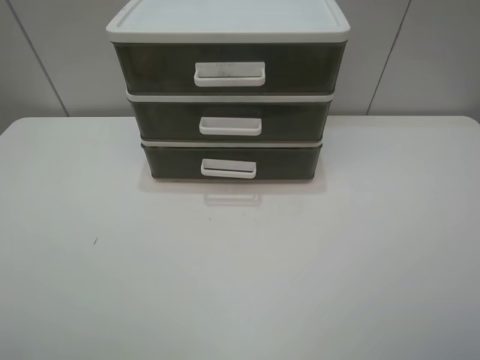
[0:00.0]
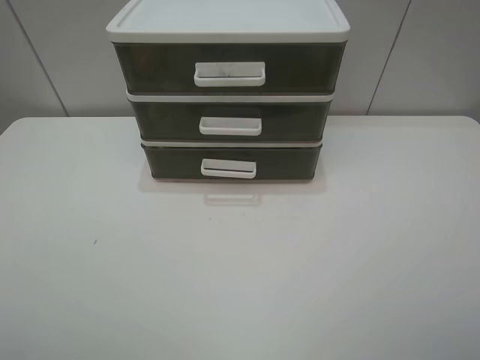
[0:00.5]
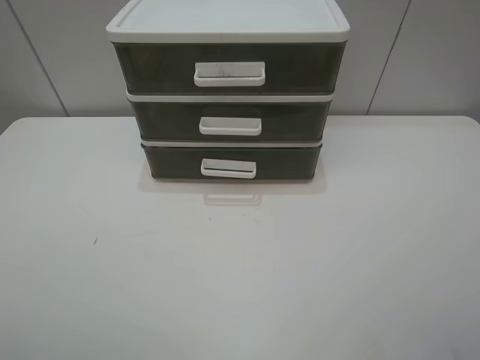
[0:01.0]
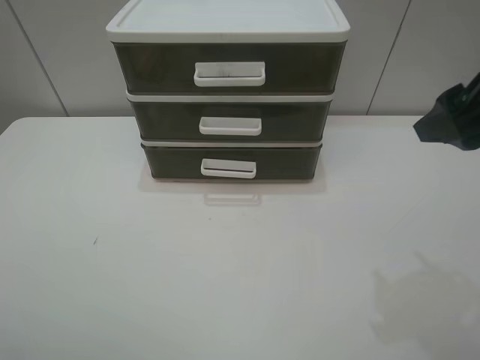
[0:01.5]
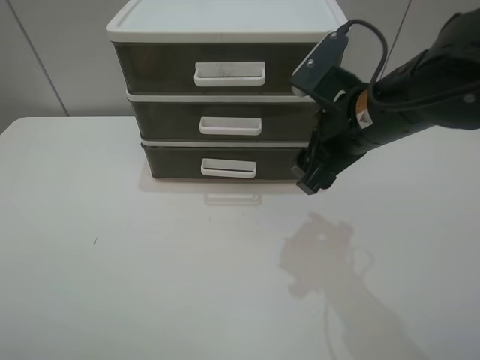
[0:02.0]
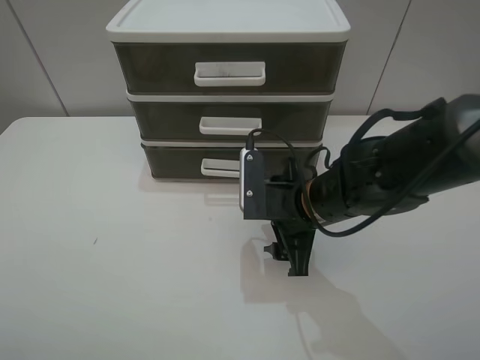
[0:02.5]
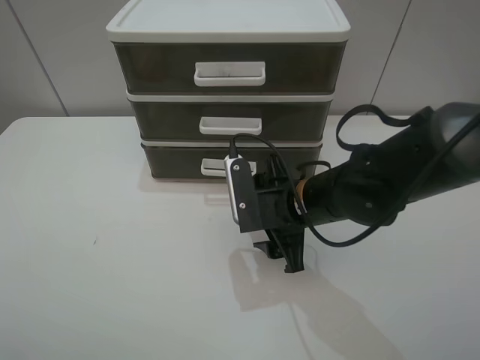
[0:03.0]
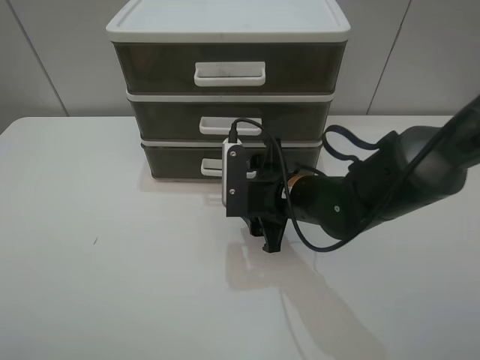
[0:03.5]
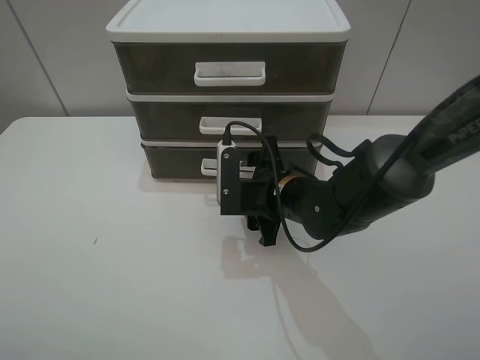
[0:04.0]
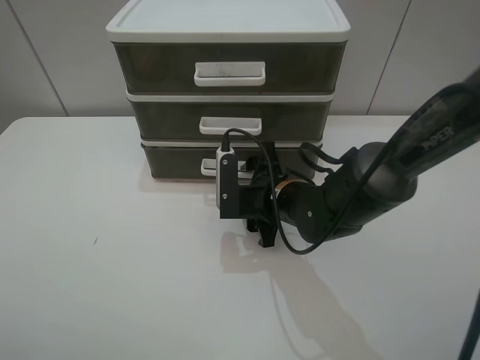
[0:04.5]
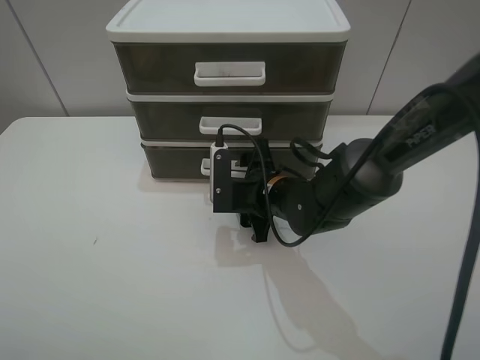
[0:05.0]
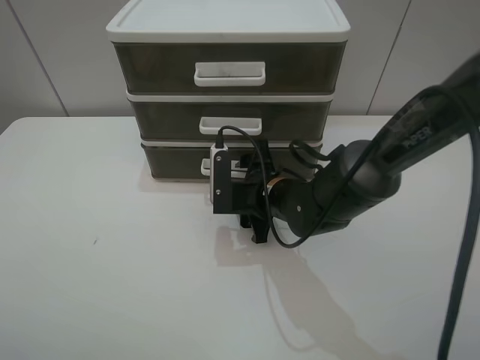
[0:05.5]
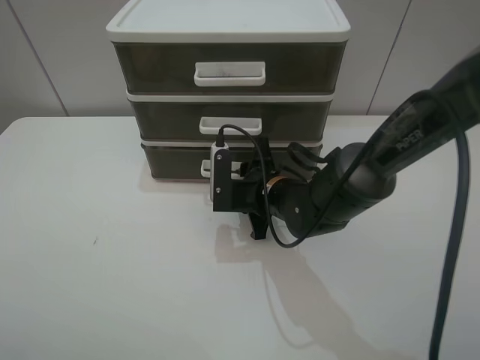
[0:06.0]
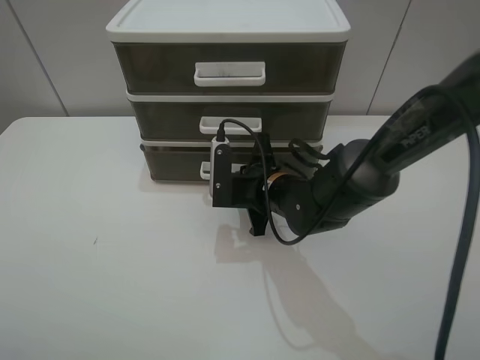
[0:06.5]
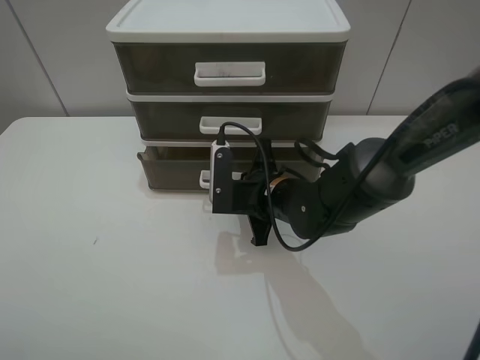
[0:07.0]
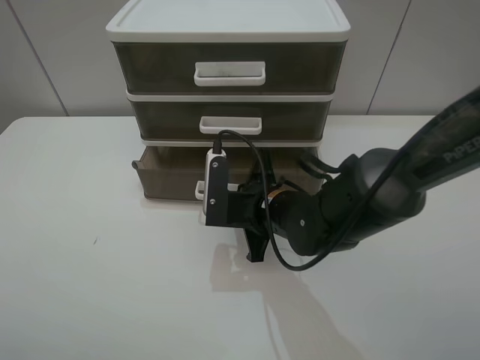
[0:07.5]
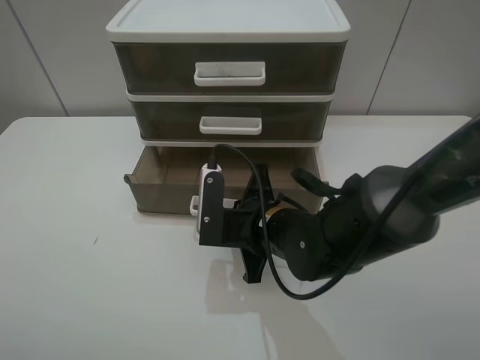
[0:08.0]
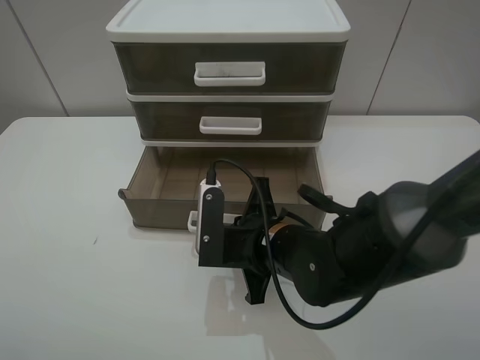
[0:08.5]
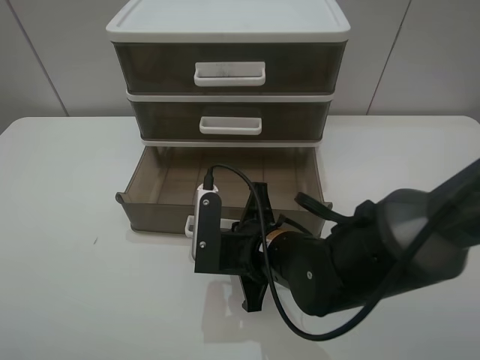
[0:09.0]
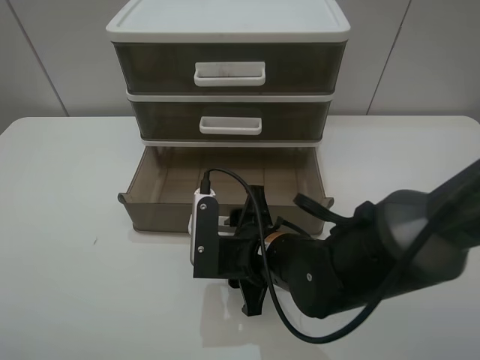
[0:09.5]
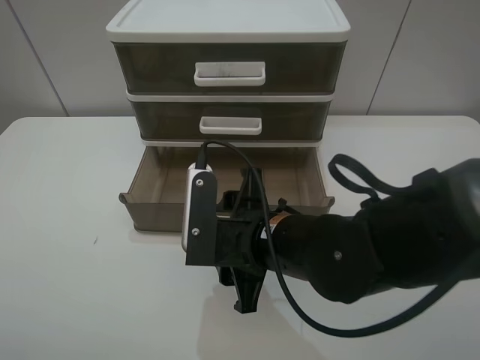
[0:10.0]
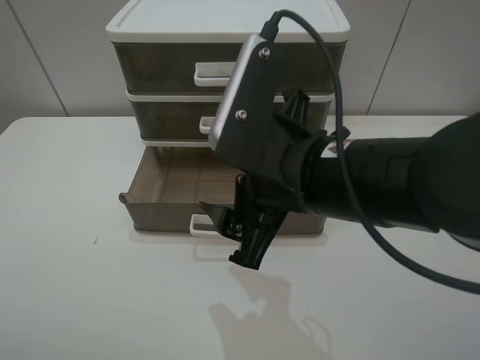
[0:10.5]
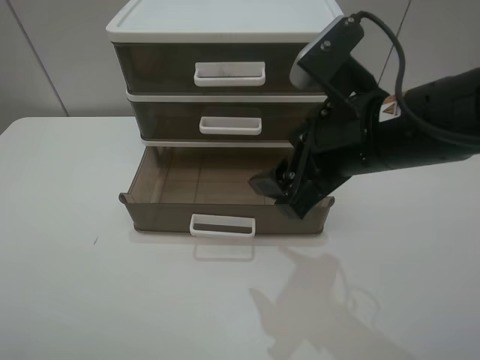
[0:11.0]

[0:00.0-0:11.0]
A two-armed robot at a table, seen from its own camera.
Task of the whole recording: open the bottom drawer.
Step, 0:00.0 to 0:06.5: Grab the bottom drawer with the right gripper.
Step, 0:07.0 to 0:10.0: Pull open the drawer with the right gripper.
0:00.0 to 0:02.0: The right gripper goes approximately 30 cm forward and to the left.
0:02.0 to 0:03.5: The right gripper heads downward and to the left, covering roughly 15 cm.
0:03.5 to 0:05.5: There are only small adjustments of the grippers.
0:05.5 to 0:07.5: The right gripper closes its fingers.
0:07.5 to 0:09.0: The right gripper moves backward, roughly 5 cm.
0:09.0 to 0:11.0: The right gripper moves upward and to the right, about 20 cm, and opens.

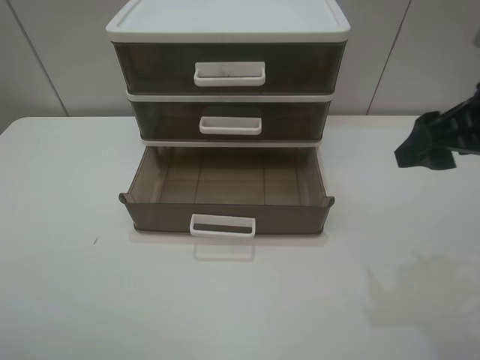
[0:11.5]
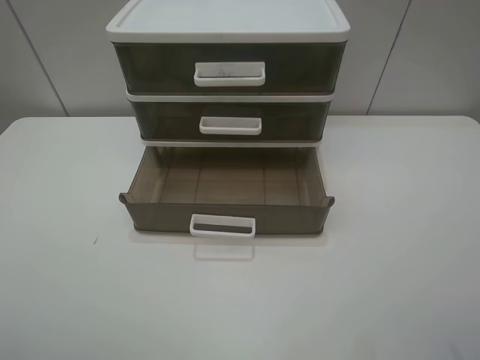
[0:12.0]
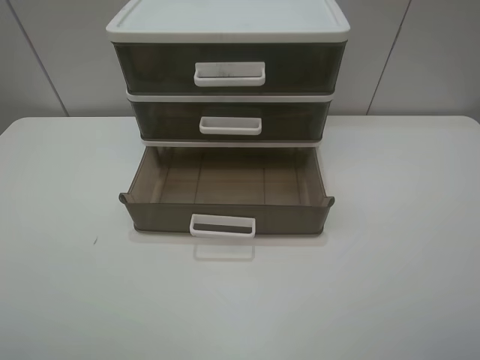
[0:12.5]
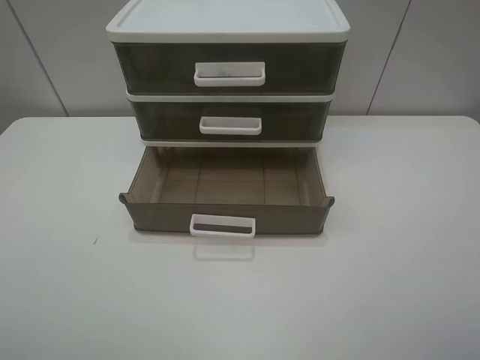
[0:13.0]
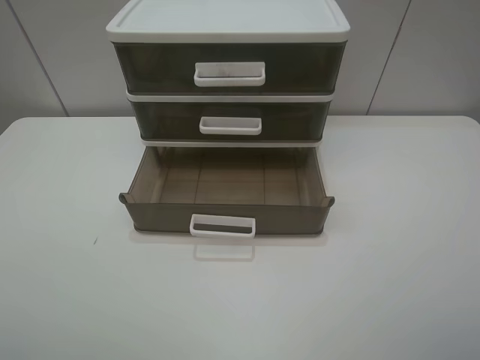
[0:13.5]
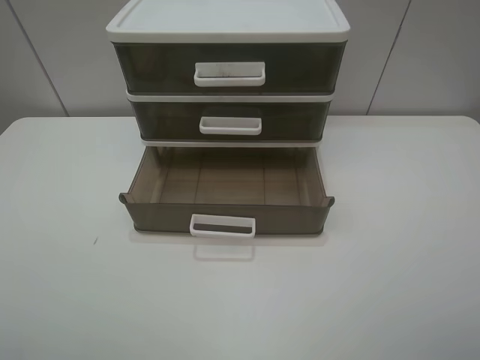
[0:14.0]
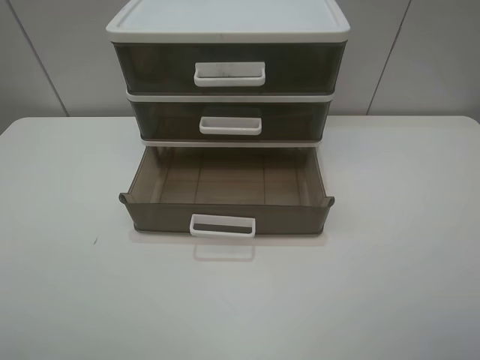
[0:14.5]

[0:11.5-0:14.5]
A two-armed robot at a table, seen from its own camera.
Task of the whole recording: open the bottom drawer.
0:11.5 to 0:13.0: The right gripper is displaced backward by some 20 cm.

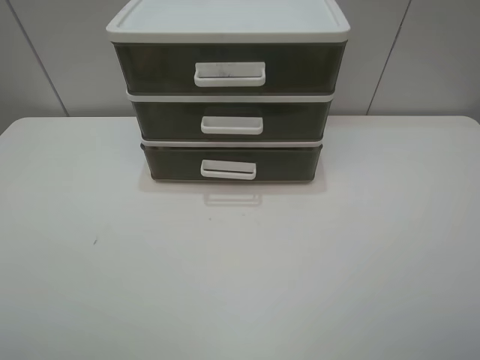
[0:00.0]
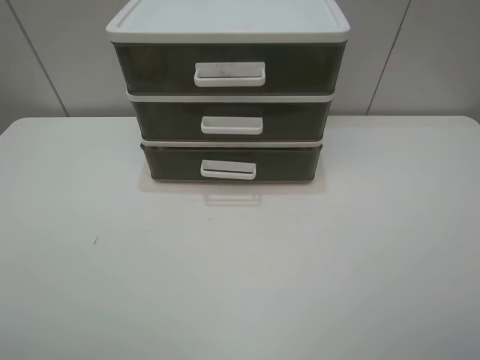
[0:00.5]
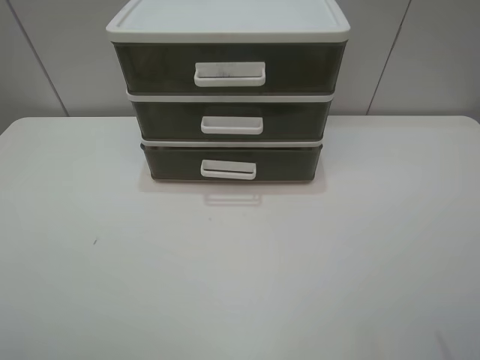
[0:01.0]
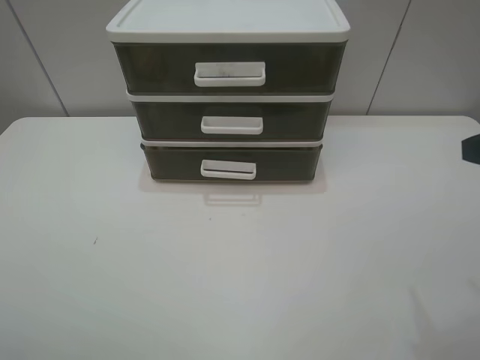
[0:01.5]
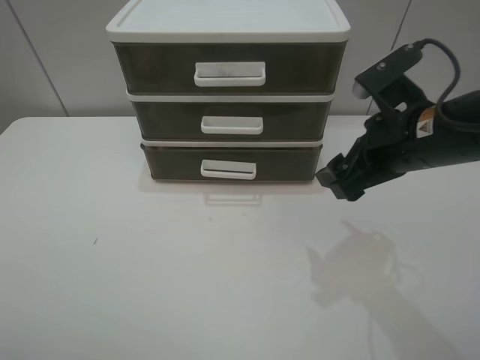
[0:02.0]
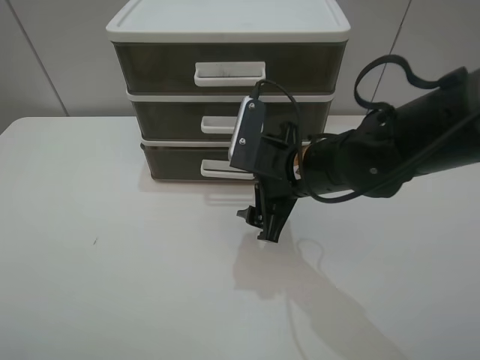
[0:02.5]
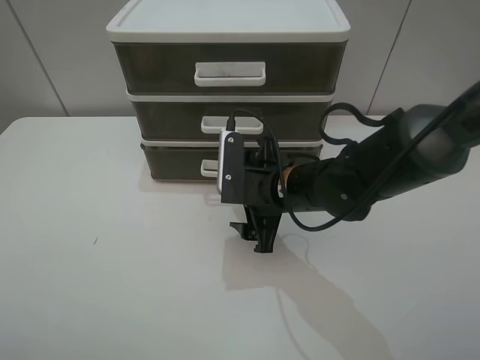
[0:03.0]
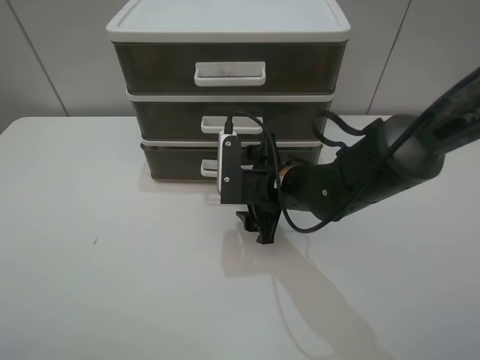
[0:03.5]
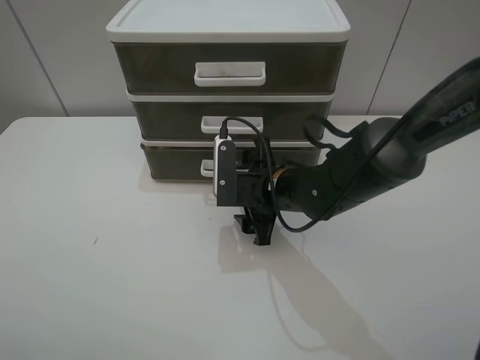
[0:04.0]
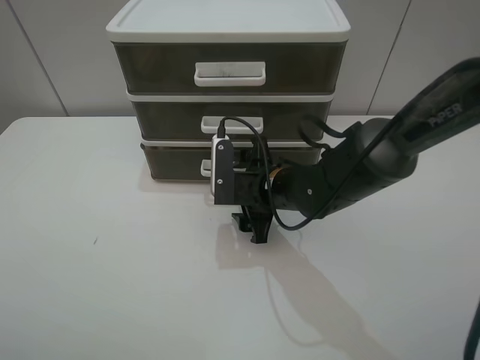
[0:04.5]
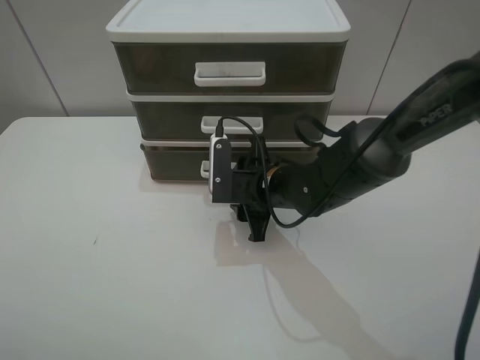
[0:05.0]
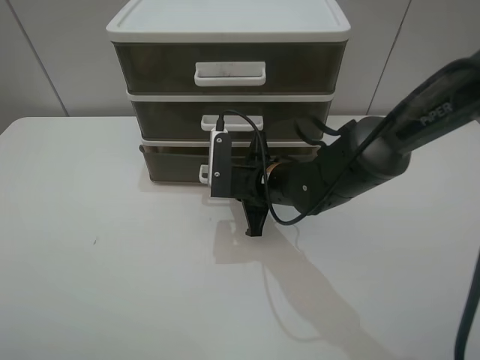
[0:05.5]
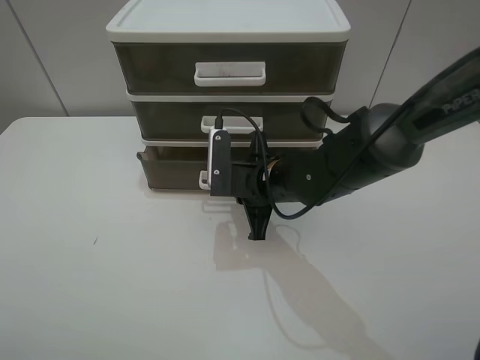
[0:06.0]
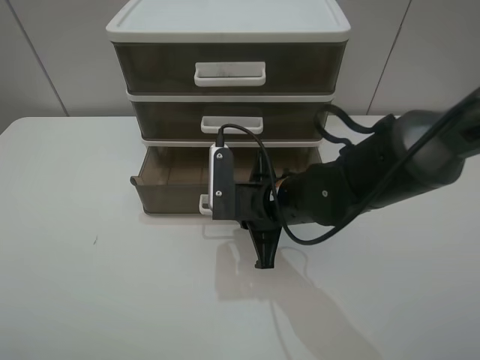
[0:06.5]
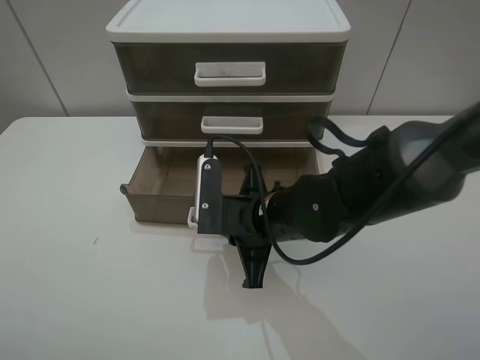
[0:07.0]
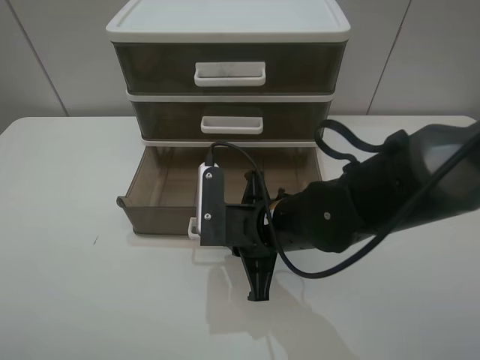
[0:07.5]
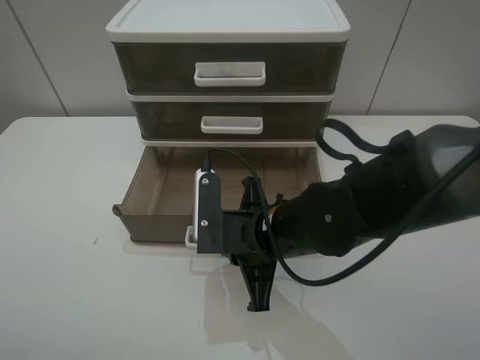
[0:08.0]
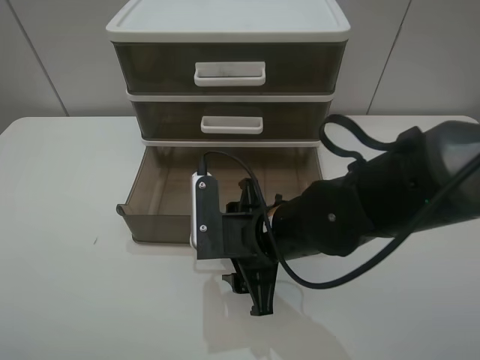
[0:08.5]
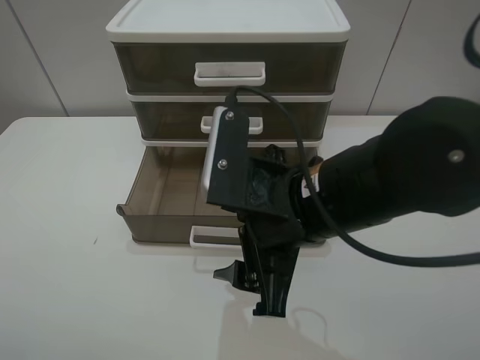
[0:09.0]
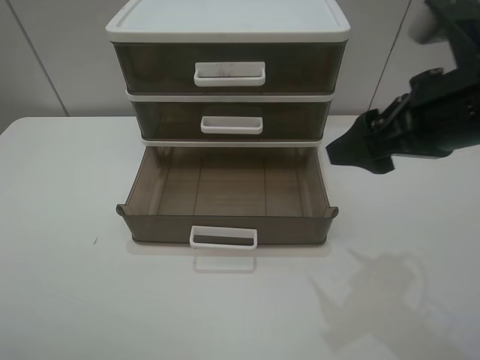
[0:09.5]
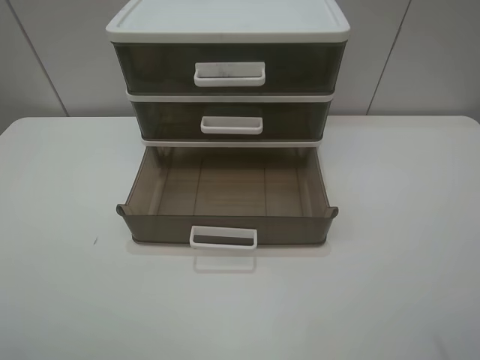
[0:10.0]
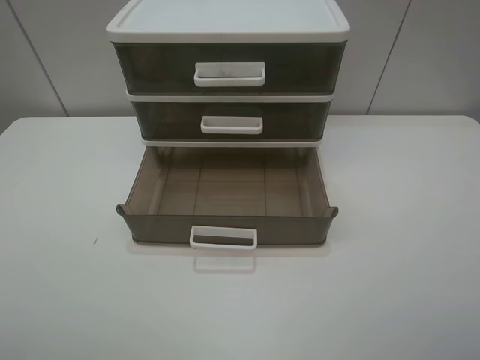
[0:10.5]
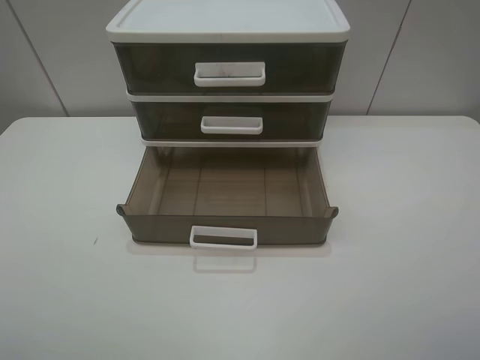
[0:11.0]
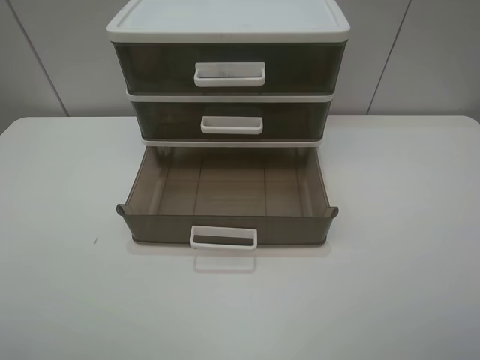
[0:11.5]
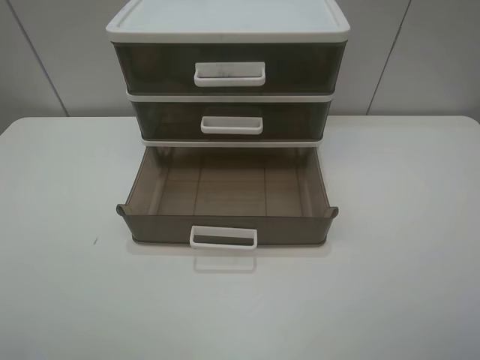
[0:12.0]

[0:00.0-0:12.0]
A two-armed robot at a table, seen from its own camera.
Task of the whole recording: open the bottom drawer.
Step, 0:00.0 to 0:05.5: Grab the bottom drawer with the right gripper.
Step, 0:06.0 to 0:08.5: Pull open the drawer with the right gripper.
0:00.0 to 0:02.0: The right gripper shifts about 25 cm forward and to the left.
0:02.0 to 0:04.0: The right gripper is displaced downward and to the left by roughly 15 cm.
0:04.0 to 0:06.0: The right gripper closes its fingers.
0:06.0 to 0:08.0: The right gripper travels backward by some 10 cm.
0:08.0 to 0:10.0: The right gripper goes some 35 cm upward, to the right and backward, and opens its fingers.
